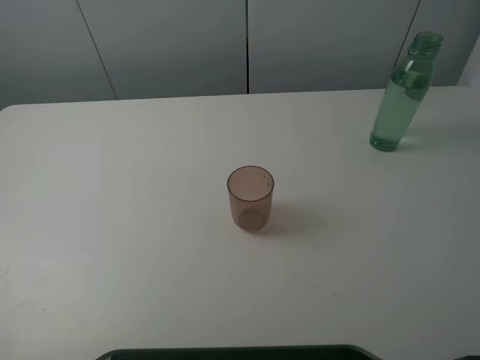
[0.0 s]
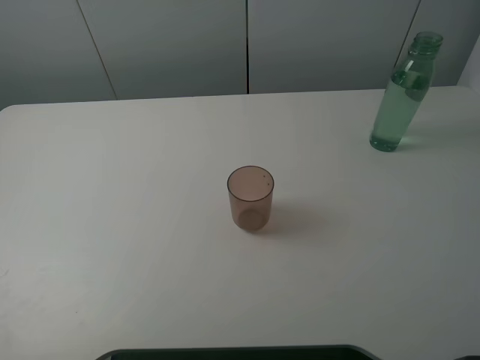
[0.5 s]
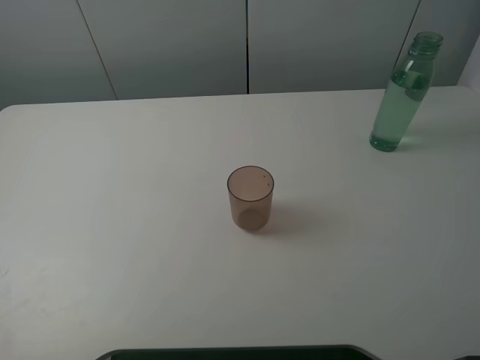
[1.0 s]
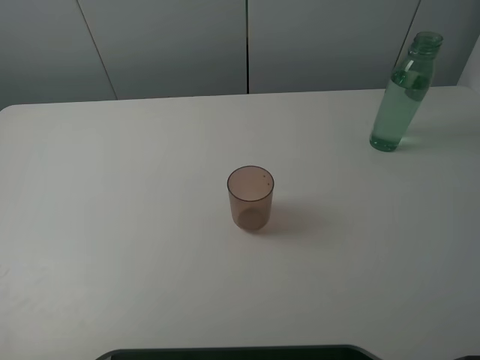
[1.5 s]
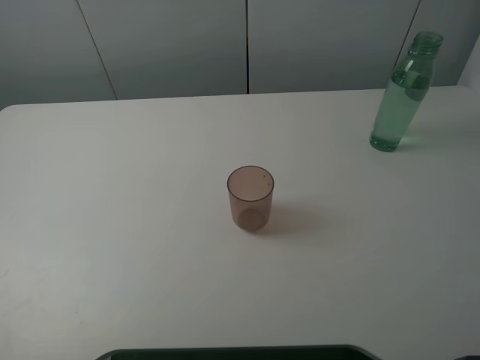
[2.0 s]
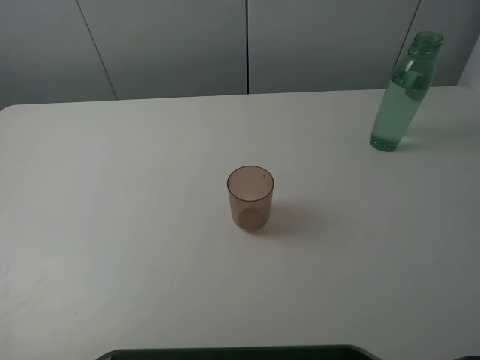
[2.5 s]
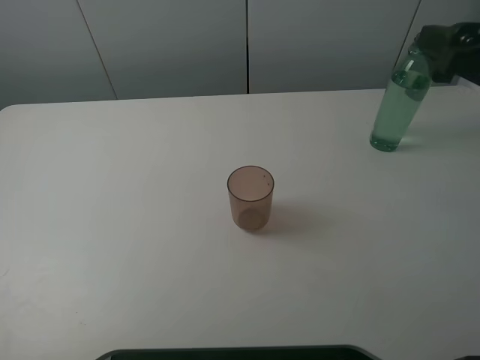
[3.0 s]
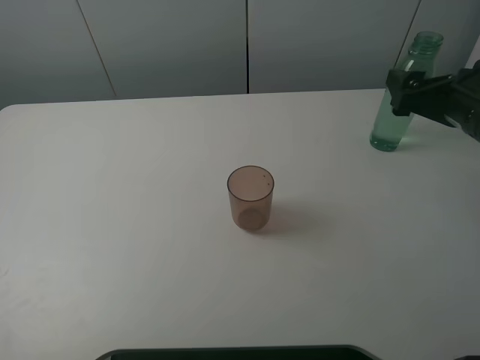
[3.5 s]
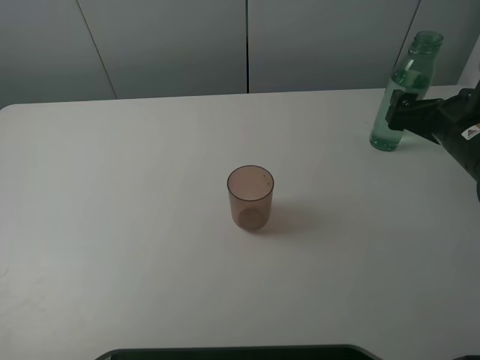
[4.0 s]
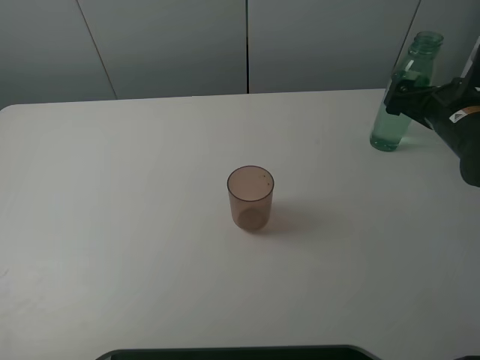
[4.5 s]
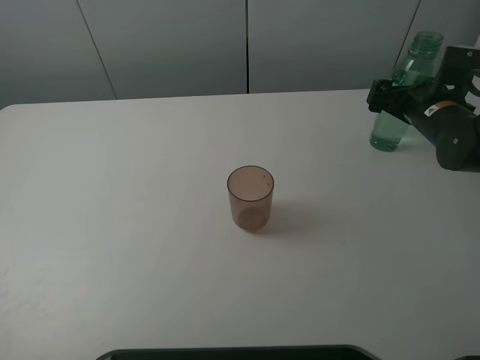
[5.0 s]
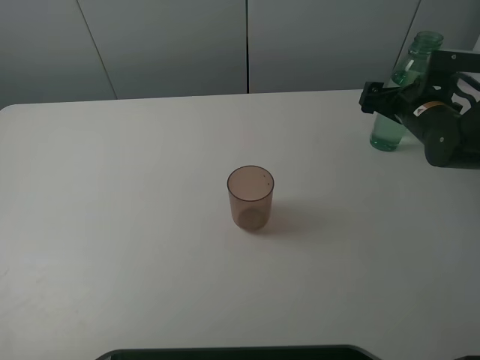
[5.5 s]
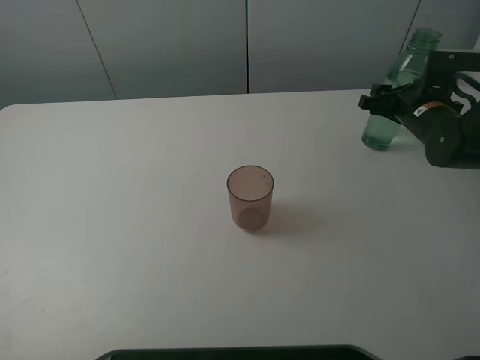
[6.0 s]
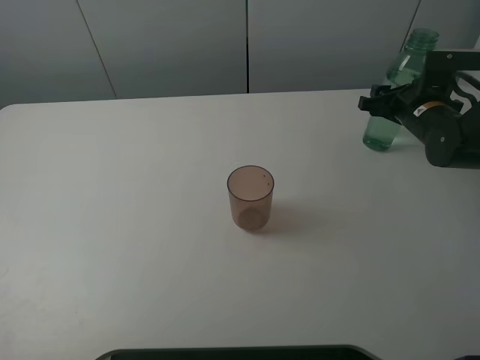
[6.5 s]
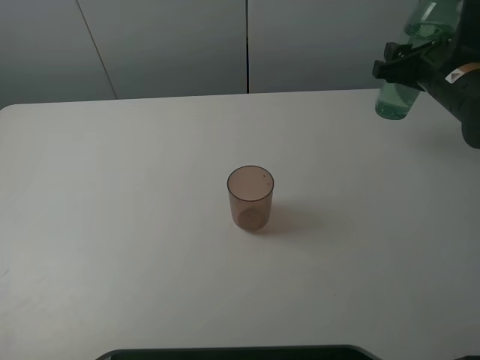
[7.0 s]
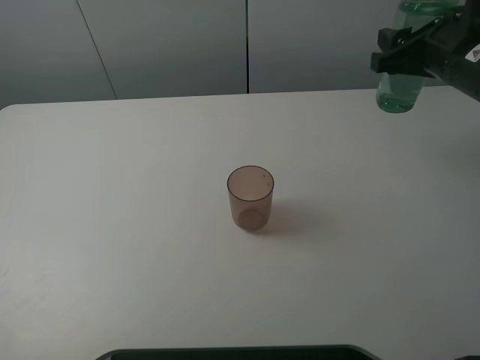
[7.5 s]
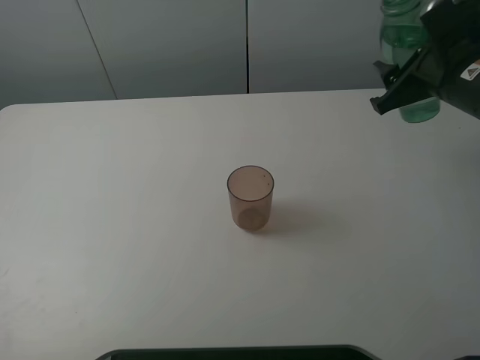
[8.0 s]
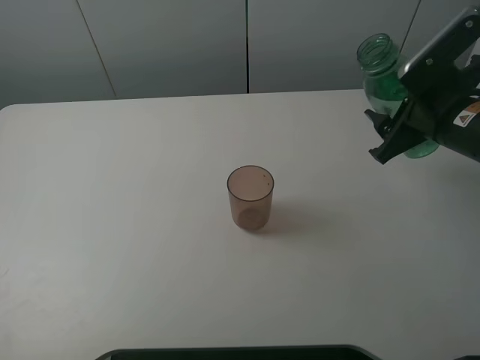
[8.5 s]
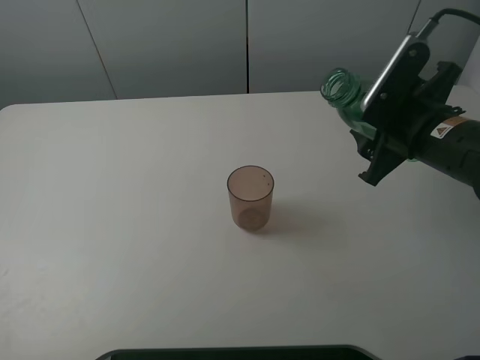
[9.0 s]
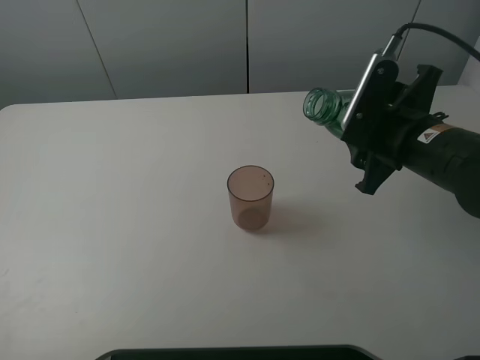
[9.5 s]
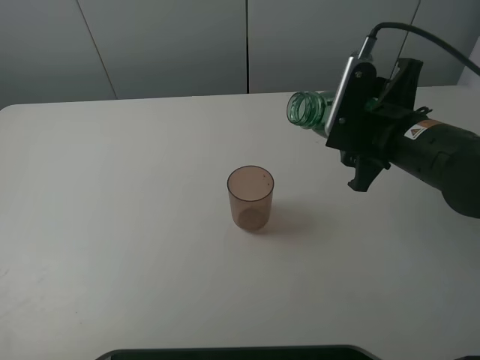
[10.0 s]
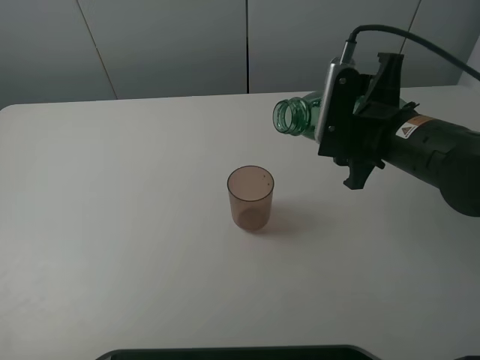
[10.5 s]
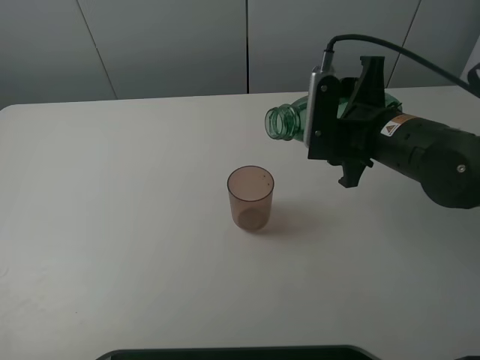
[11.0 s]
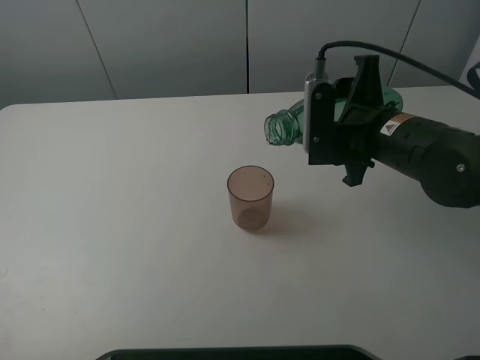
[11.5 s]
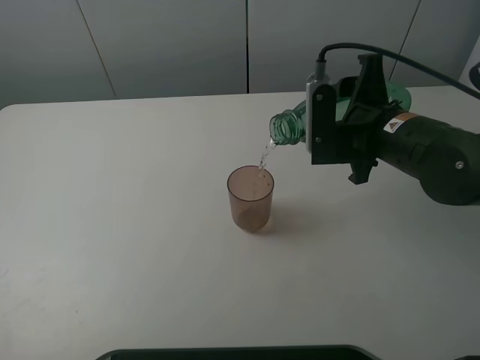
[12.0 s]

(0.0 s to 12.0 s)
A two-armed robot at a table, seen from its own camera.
Task of the whole recording: pick up the bottle filled with water and pour it into the pink cup.
Step, 0.0 s - 6.0 s: Grasp the green bottle with the right gripper.
2.0 s - 4.0 s: The right gripper shifts some 30 cm forward and downward.
4.0 s - 6.0 s: The right gripper is displaced forward by approximately 10 cm, and closes.
6.0 s - 8.0 s: The right gripper goes approximately 15 cm upward and backward.
8.0 s - 10.0 s: The right gripper moves to the left and backward, some 10 cm.
10.0 s - 12.0 s: The grippers move only a little.

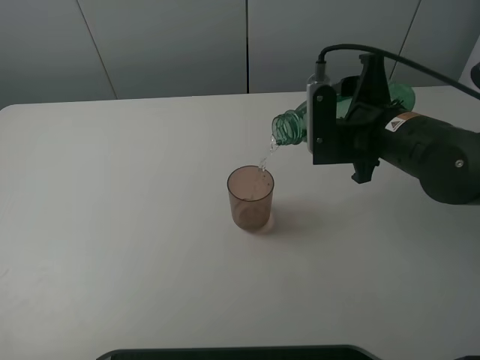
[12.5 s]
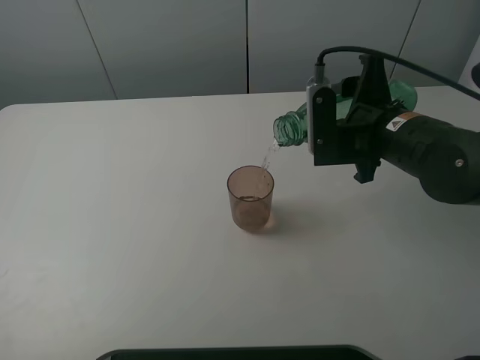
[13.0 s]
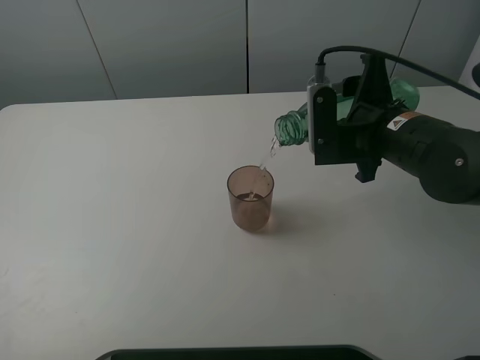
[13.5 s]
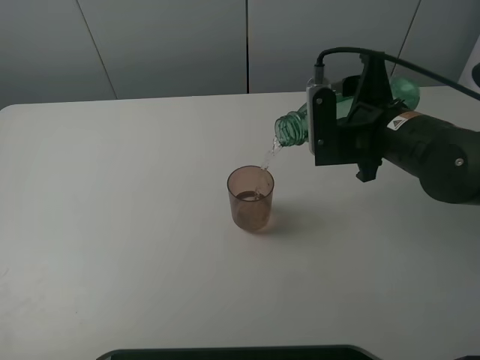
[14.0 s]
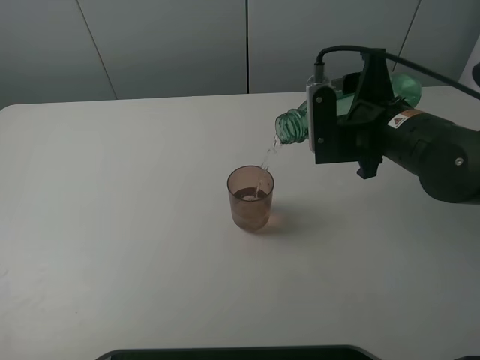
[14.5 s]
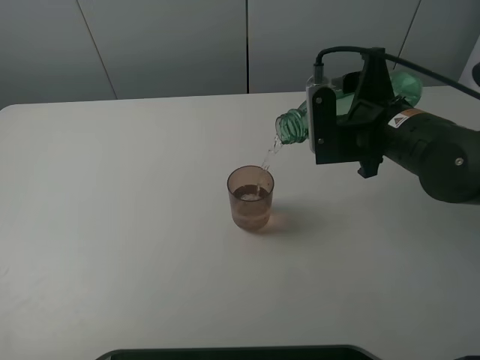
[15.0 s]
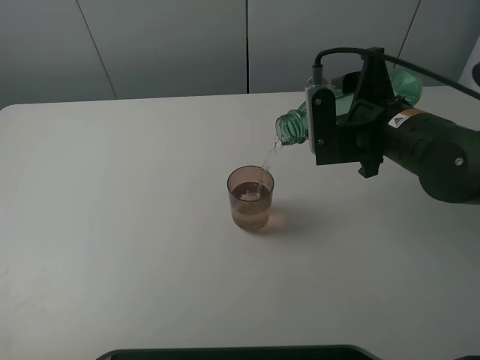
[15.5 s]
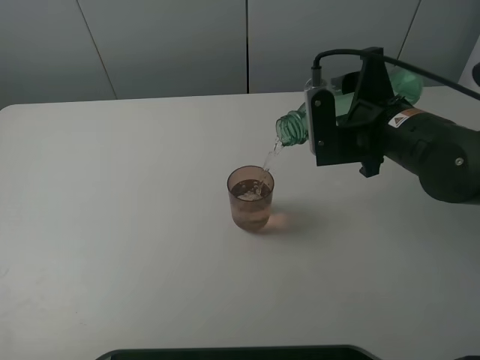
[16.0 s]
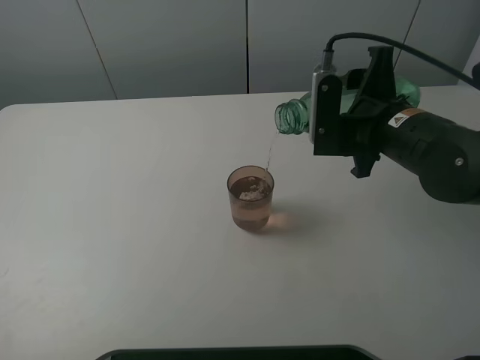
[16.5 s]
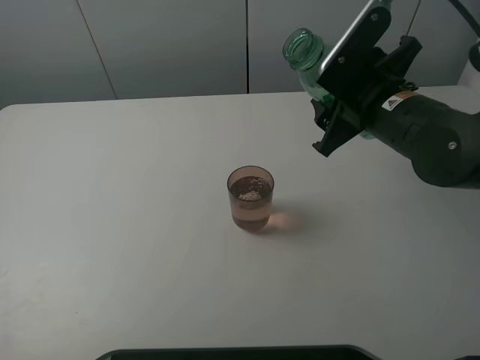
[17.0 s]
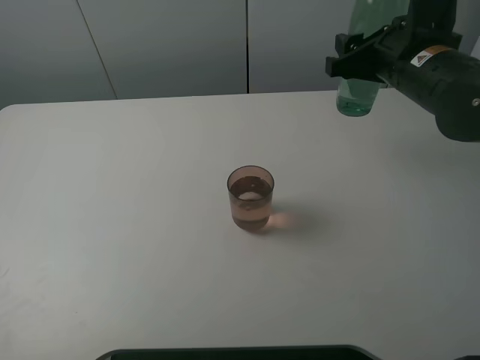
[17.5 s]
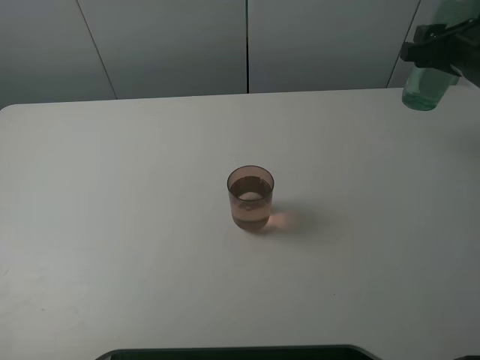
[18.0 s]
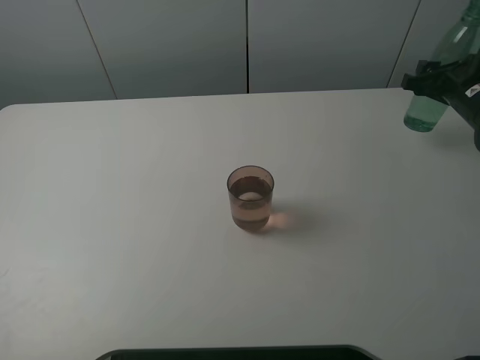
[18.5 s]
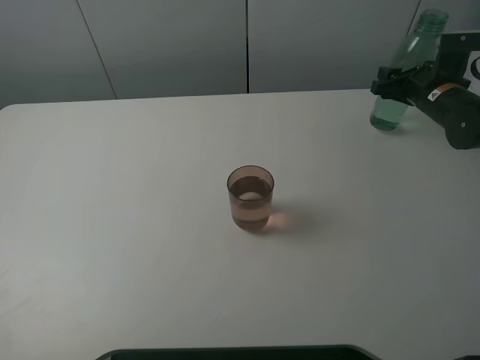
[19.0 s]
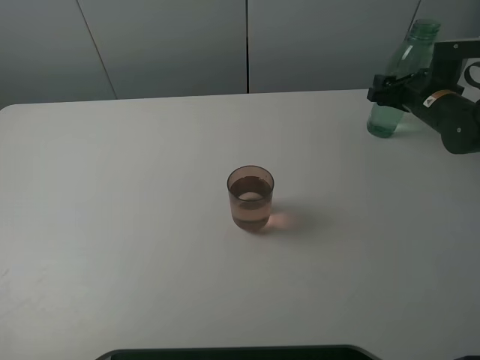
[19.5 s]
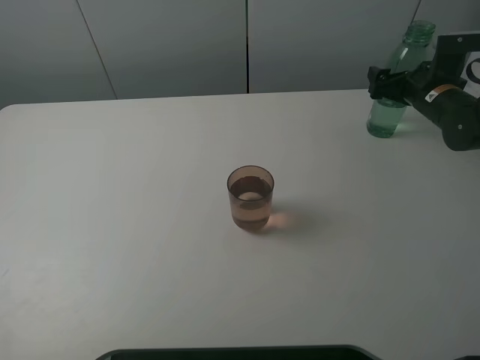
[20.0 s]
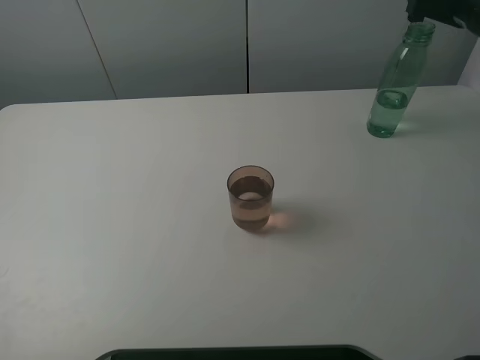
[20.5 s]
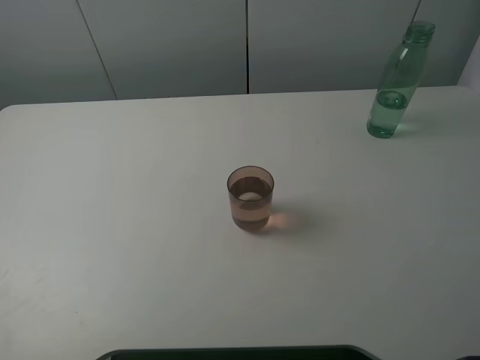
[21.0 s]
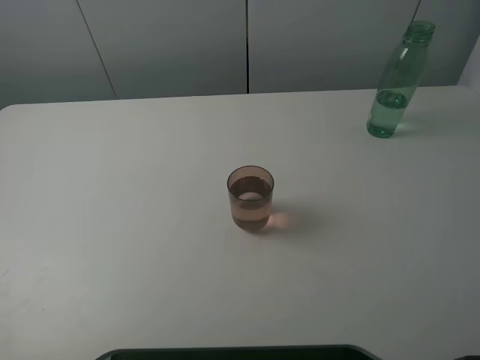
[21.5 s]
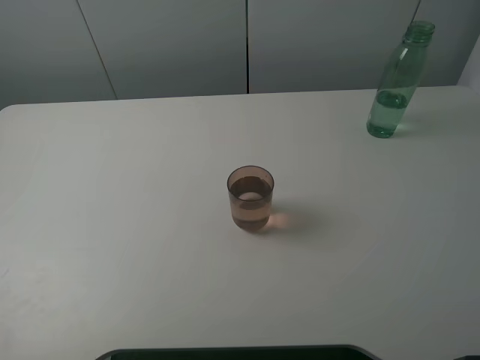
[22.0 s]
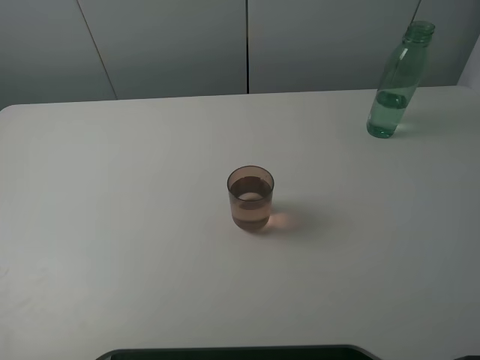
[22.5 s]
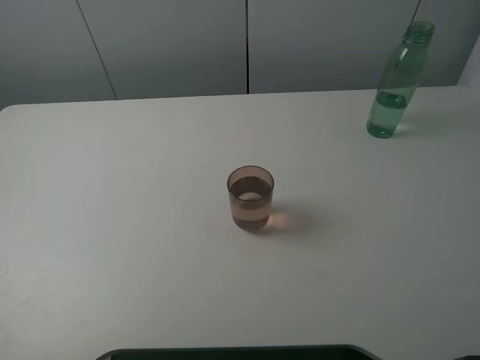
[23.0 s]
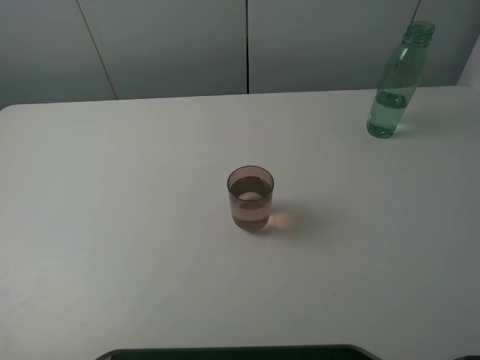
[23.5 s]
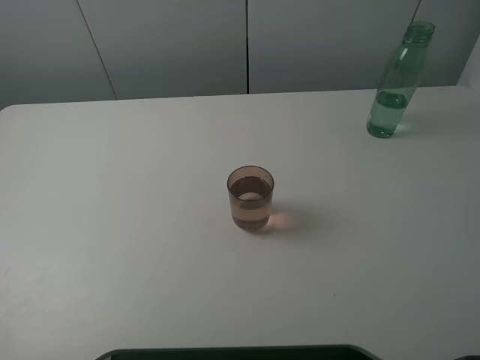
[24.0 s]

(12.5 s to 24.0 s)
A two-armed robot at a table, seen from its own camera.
Task of the whole recording: pick up the bottle filled with water and pour it into the pink cup.
Step, 12.5 s - 16.5 s: Pour water from green bottle to pink cup with the right gripper.
Step, 17.0 s - 20.0 s: Place the green bottle with the right gripper.
12.5 s - 14.5 s: Both grippers stay about where they are.
14.5 s - 16.5 s: There are only small adjustments of the grippers.
16.5 s - 18.5 s: The right gripper moves to the right and forward, roughly 20 cm.
18.5 s - 20.0 s: The right gripper changes place by about 5 cm, and opens up.
20.0 s - 22.0 s: The right gripper is displaced backward and upward by roughly 40 cm.

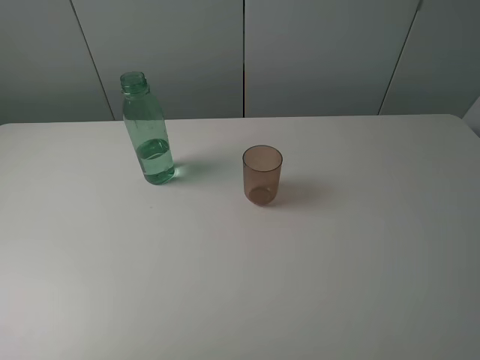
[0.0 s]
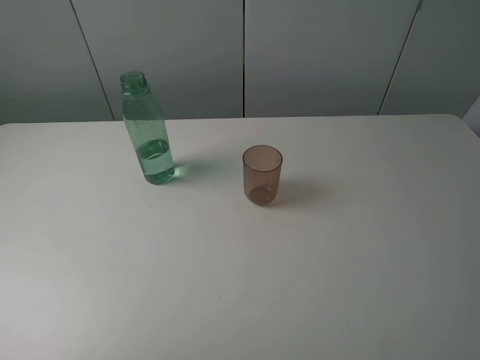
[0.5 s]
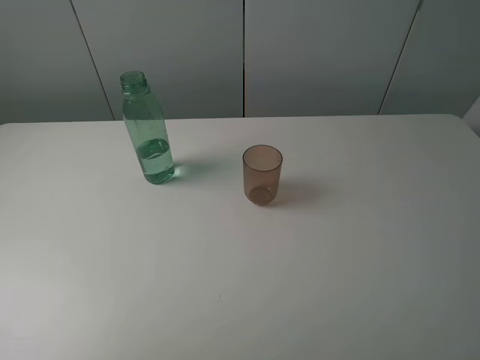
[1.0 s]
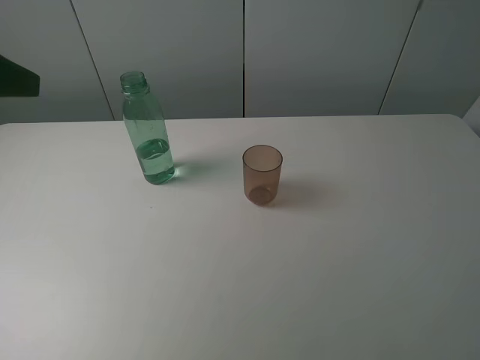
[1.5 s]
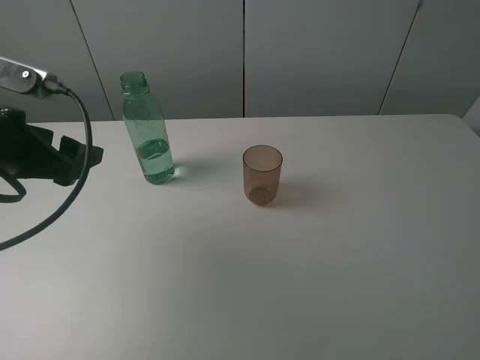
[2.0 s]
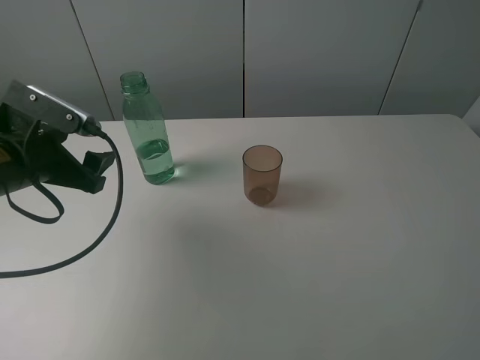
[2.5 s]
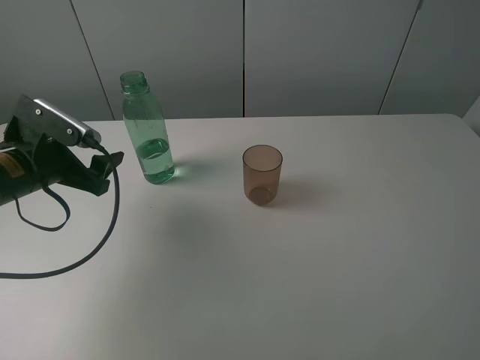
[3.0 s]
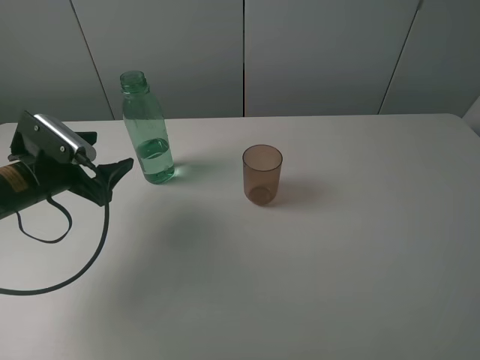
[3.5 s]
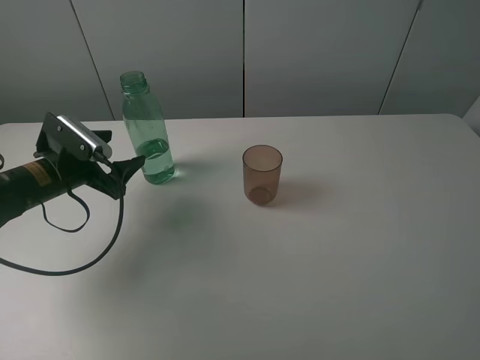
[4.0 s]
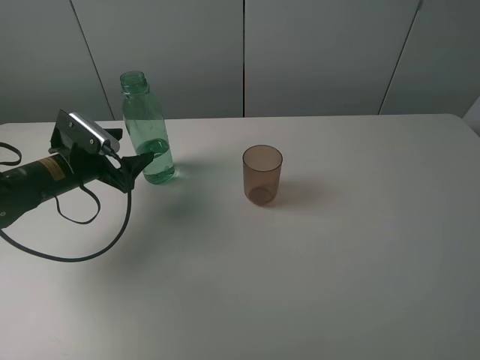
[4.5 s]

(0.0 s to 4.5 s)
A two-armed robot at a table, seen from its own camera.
Task of the whole recording: pick up the bottle filled with water and pour it into the pink cup.
0.0 s - 2.0 s: The left gripper heads forward, covering approximately 20 cm.
2.0 s - 4.5 s: The left gripper goes about 15 cm downward and forward.
